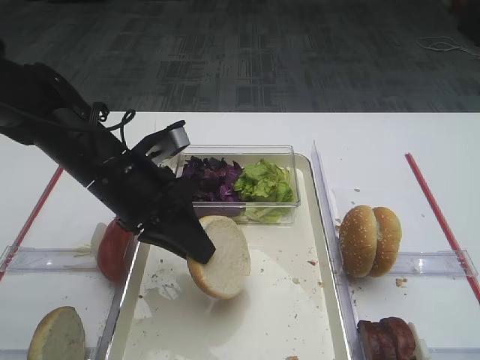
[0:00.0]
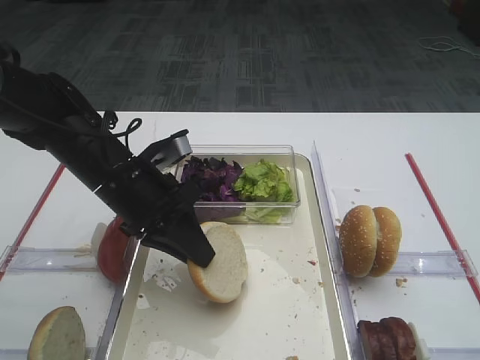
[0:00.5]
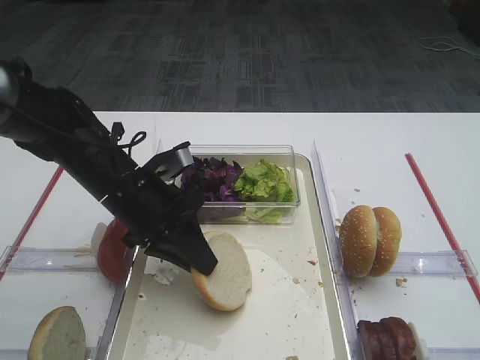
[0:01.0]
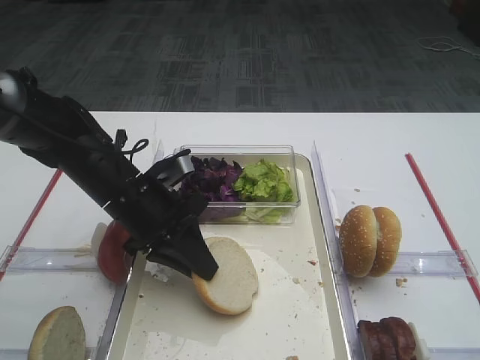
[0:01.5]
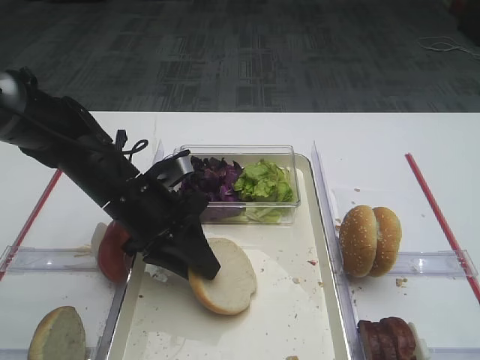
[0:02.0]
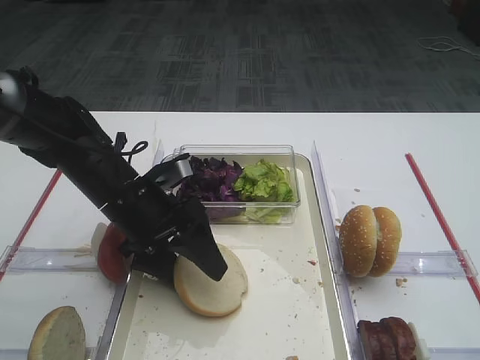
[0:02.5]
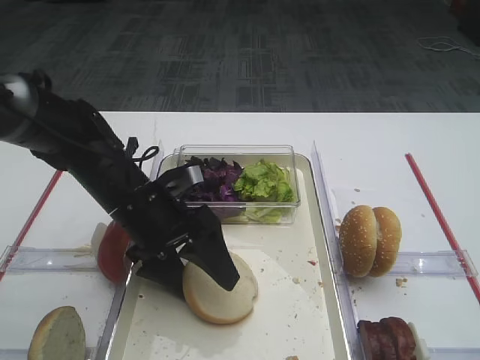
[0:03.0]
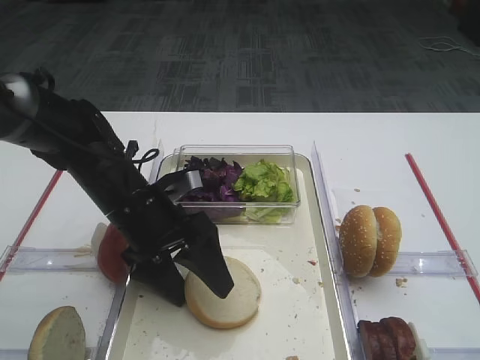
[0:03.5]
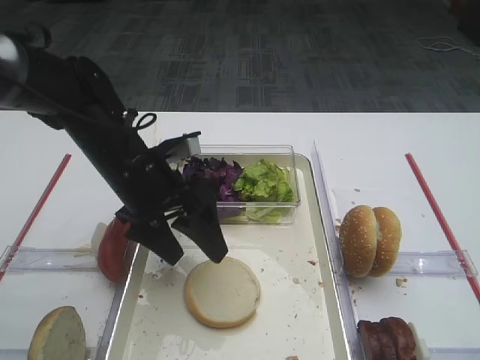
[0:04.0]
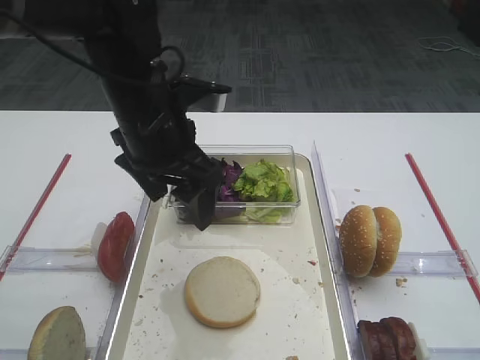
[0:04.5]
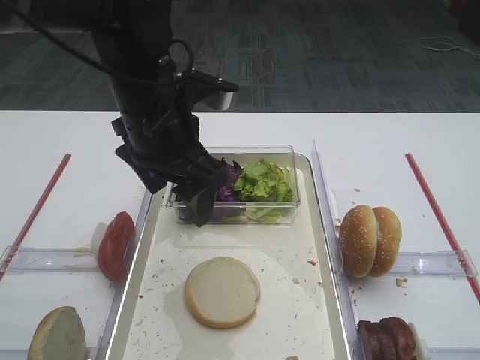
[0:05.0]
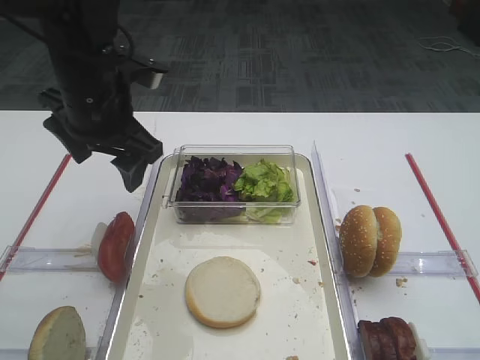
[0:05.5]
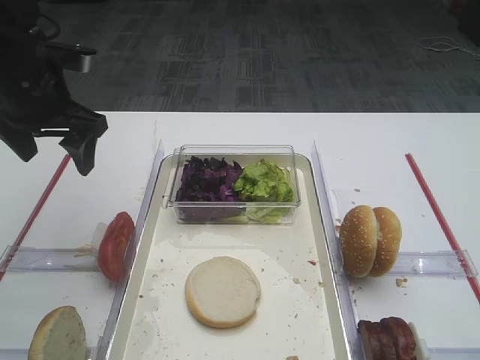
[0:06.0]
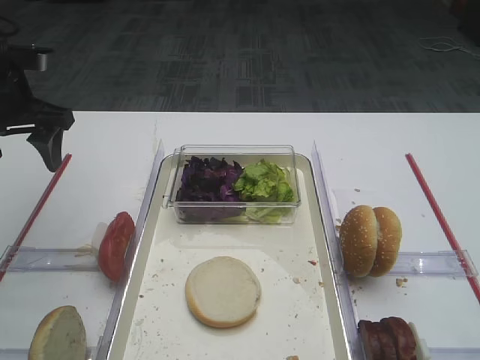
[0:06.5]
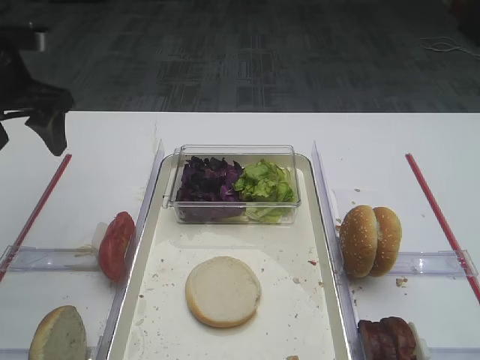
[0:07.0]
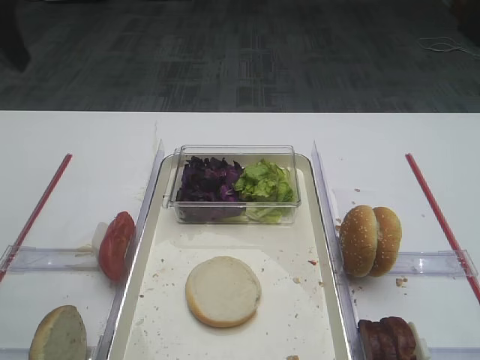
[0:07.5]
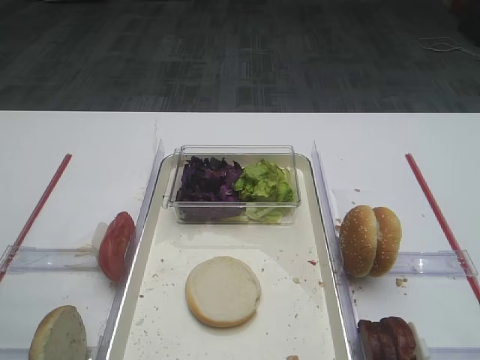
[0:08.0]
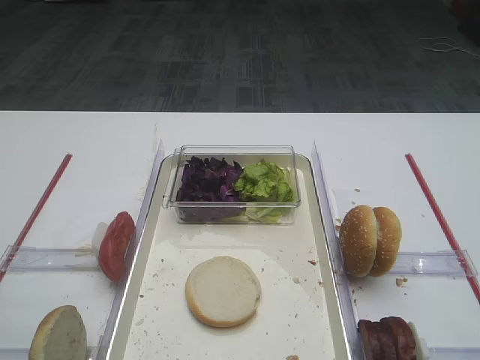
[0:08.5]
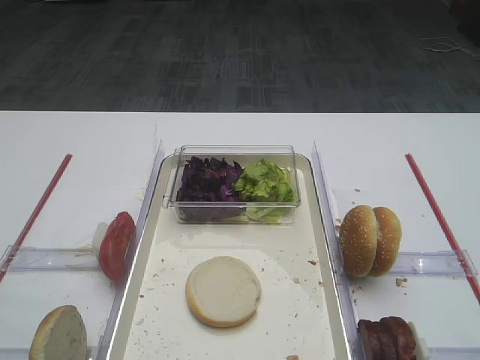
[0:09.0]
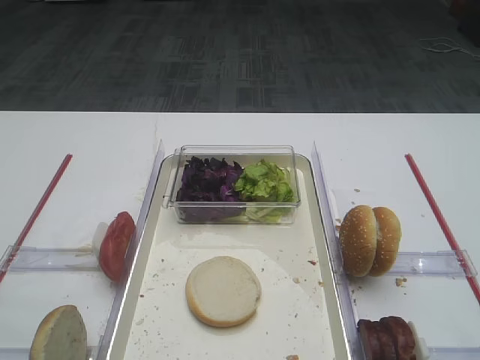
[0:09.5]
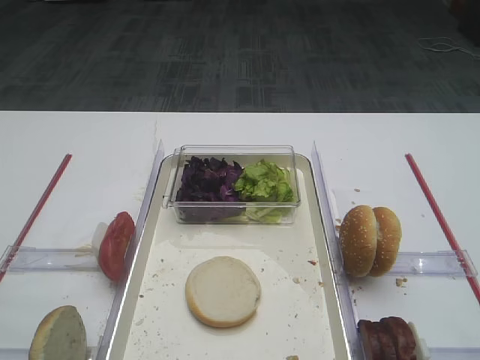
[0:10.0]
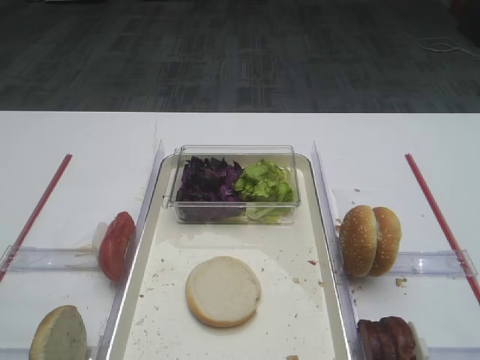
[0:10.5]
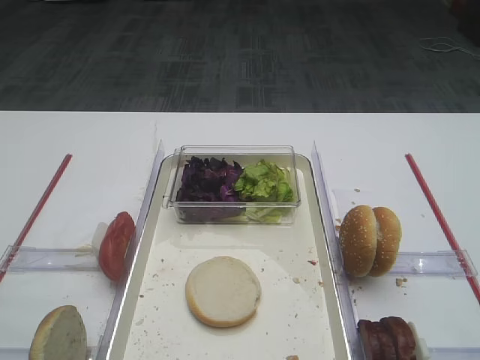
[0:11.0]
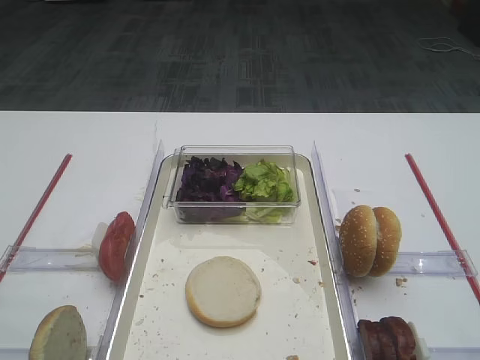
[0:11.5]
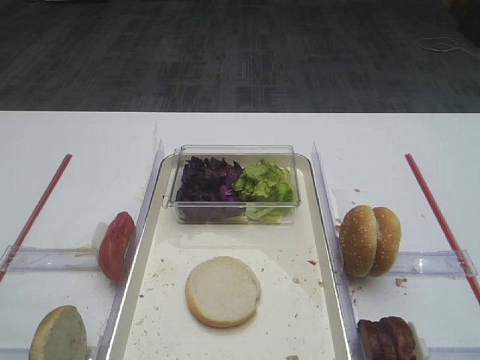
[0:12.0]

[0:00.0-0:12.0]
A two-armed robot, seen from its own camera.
Step, 0:00.0 to 0:04.0: Place the bread slice on the tray with the left gripper.
0:00.0 to 0:02.0: The grippers make only small movements.
0:02.0 to 0:04.0: The left gripper opens its fingers.
0:04.0 to 0:06.0: The left gripper moves to the left and upward, some 15 cm.
0:06.0 to 0:08.0: The left gripper moves backward and upward, some 20 cm.
0:10.0 to 0:12.0: The two grippers keep their place.

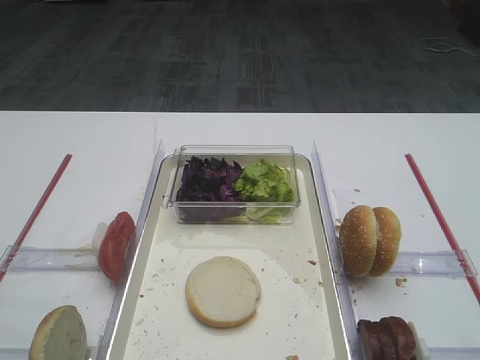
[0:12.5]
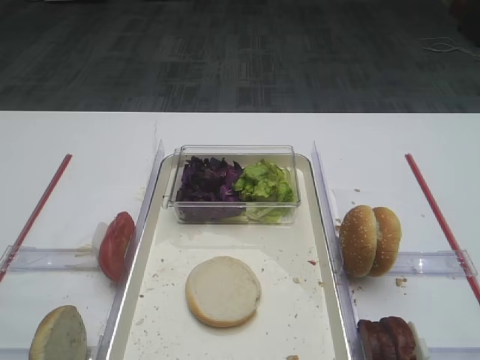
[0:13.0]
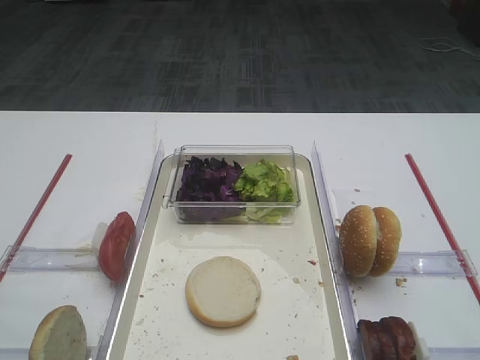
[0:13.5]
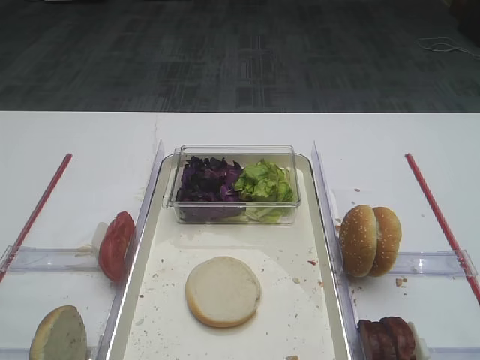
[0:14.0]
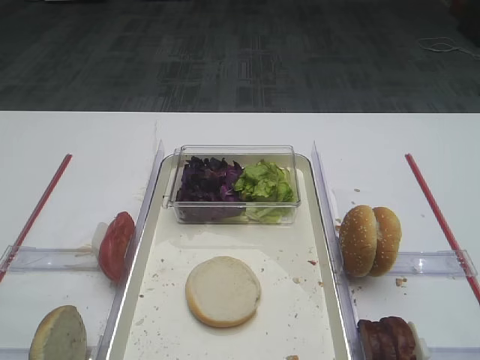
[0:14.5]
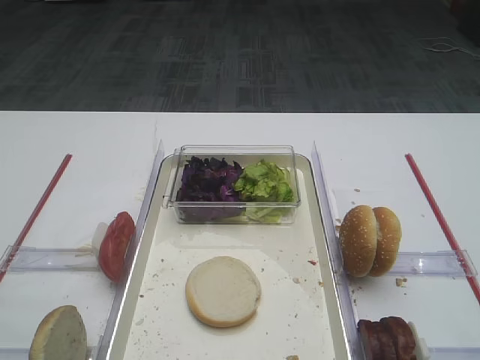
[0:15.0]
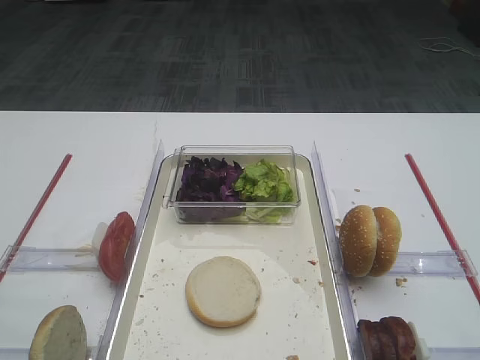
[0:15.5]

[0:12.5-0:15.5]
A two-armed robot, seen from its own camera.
0:12.5 to 0:15.5: Both grippers stay about where they are.
